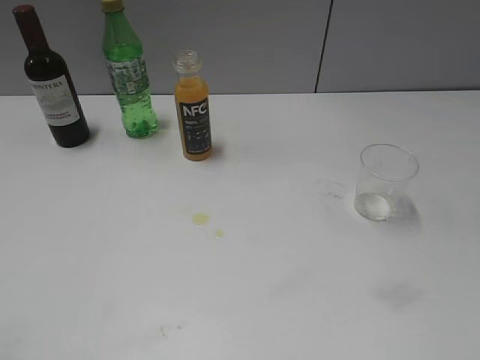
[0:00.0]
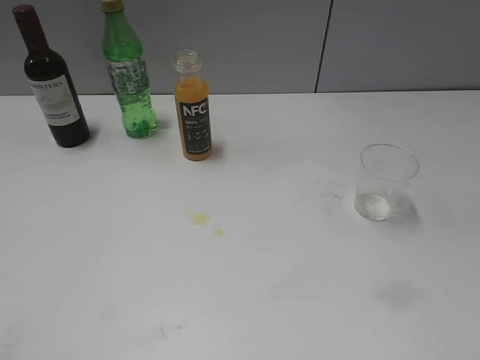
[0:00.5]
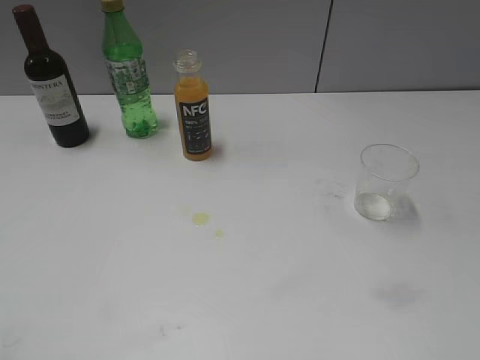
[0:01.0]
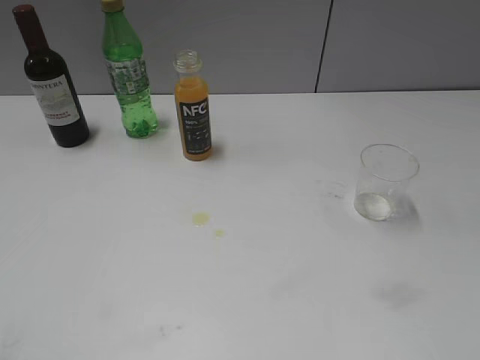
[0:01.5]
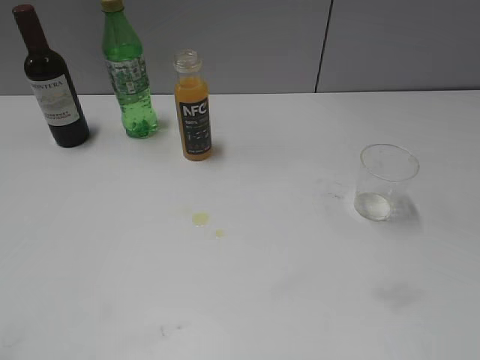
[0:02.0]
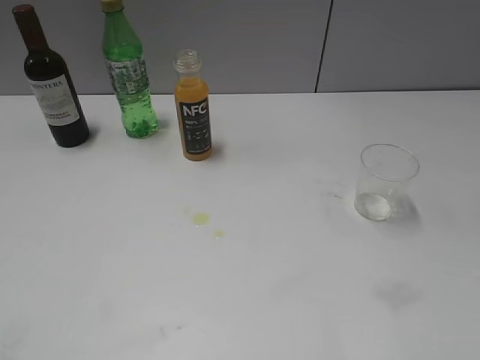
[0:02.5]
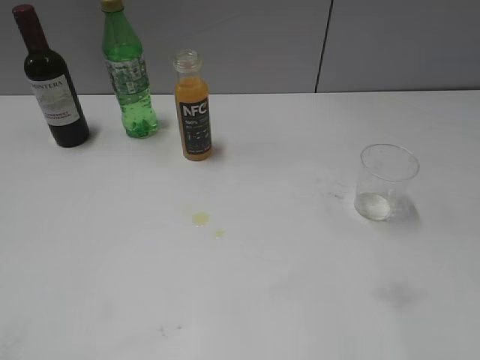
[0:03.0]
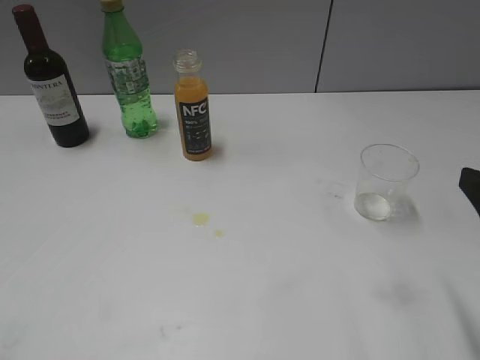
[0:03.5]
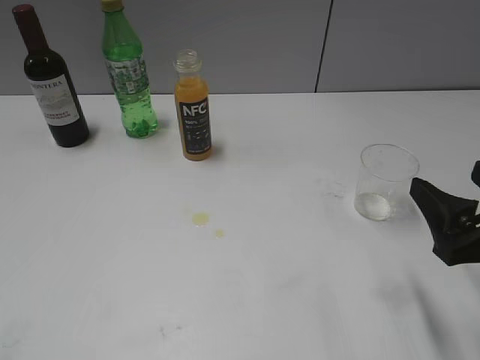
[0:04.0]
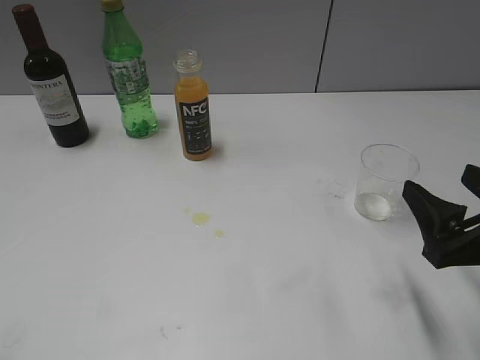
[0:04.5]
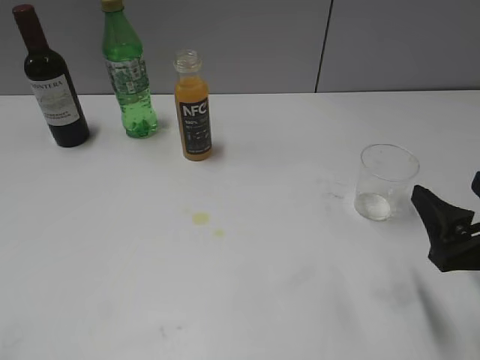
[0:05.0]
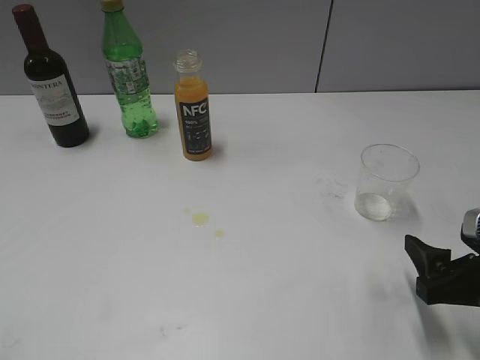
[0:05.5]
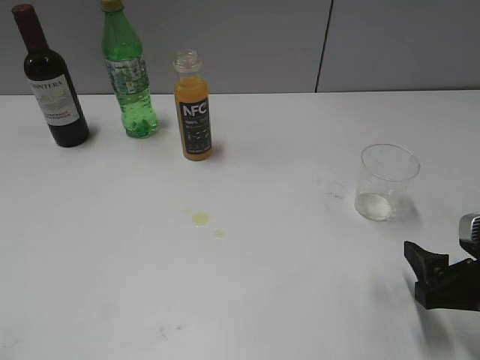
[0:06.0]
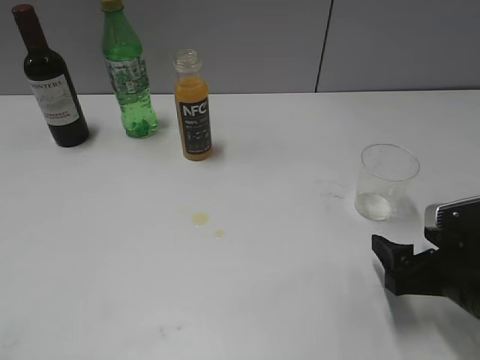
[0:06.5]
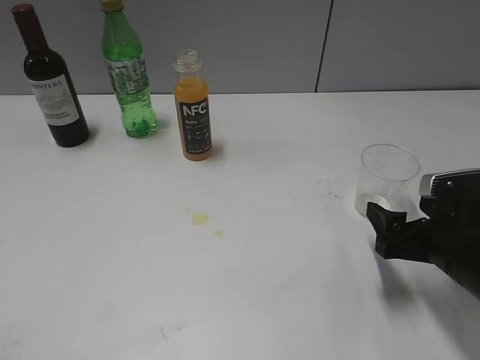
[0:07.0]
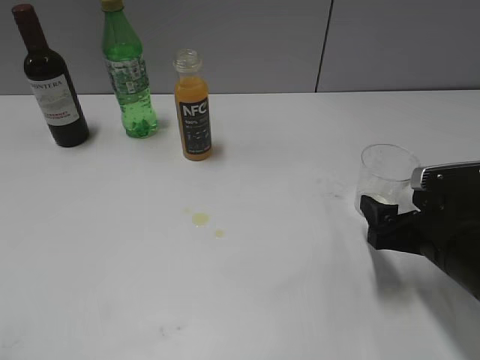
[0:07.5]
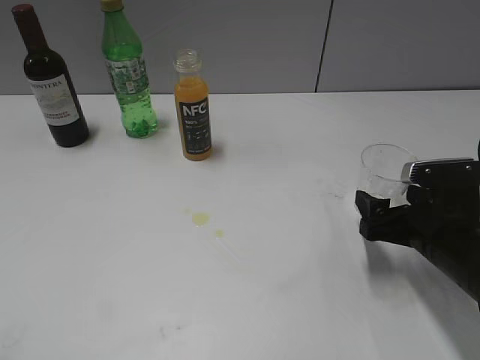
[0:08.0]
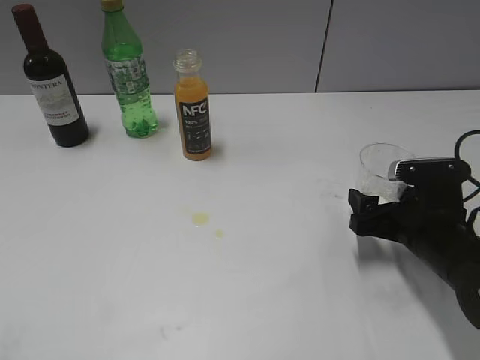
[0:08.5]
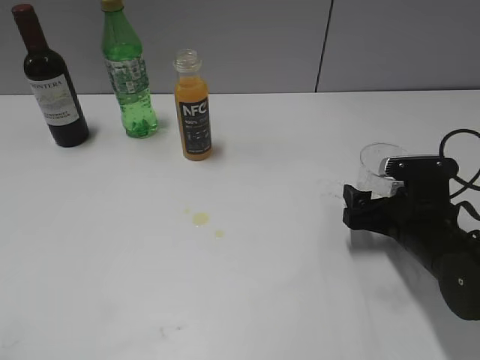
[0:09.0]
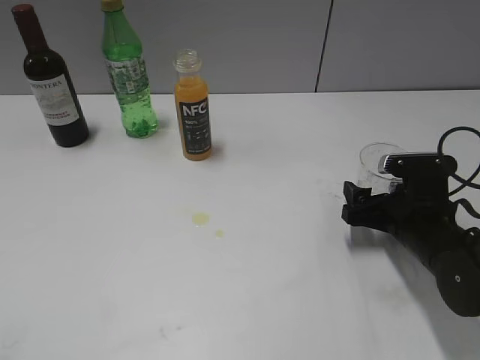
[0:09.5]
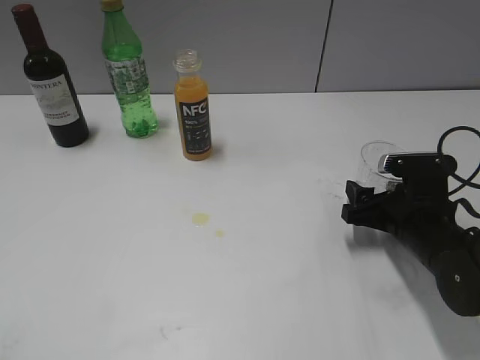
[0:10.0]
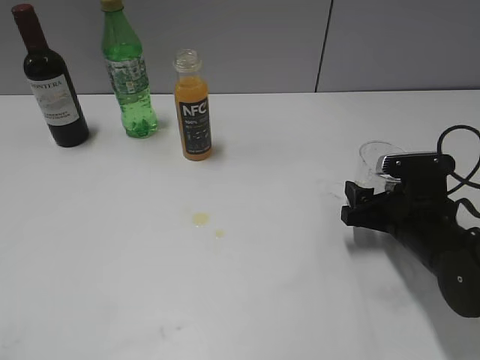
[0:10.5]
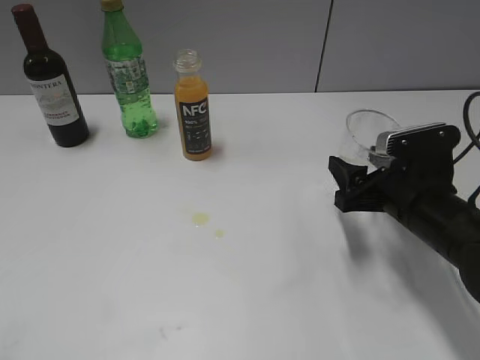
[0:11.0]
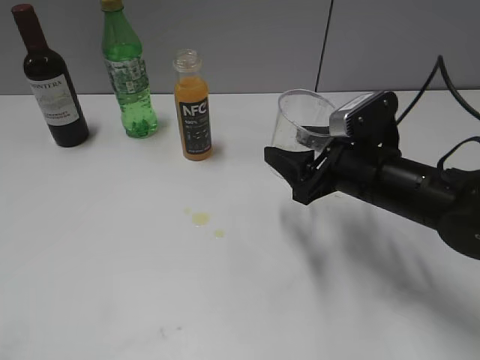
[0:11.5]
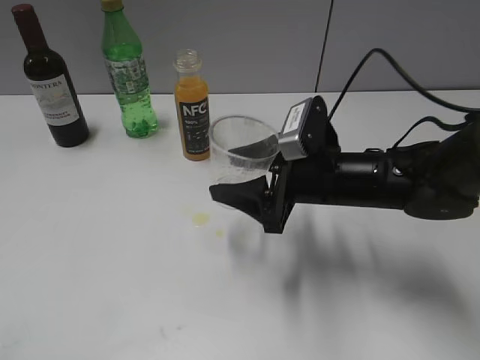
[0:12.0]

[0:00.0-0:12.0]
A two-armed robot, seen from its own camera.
Step, 0:03.5 to 0:10.0: Grasp the transparent cup with right gripper.
0:02.0 to 0:04.0: The right gripper travels forward and downward by approximately 15 cm.
0:04.0 to 0:06.0: The right gripper moves downward, roughly 5 cm.
0:06.0 to 0:08.0: The right gripper goes approximately 10 cm forward.
0:08.0 to 0:10.0: The right gripper closes up.
0:10.0 to 0:12.0: The right gripper is displaced to the left and upward by approximately 15 cm.

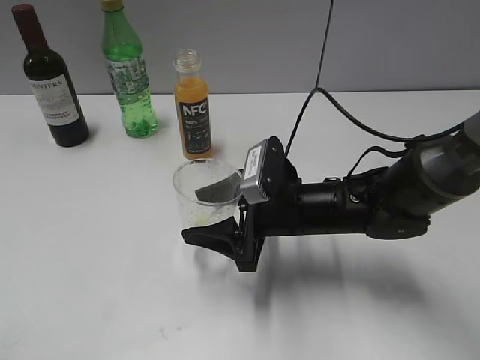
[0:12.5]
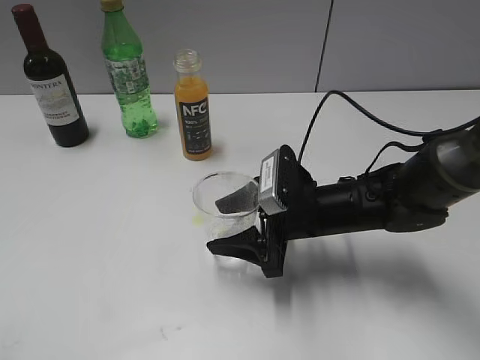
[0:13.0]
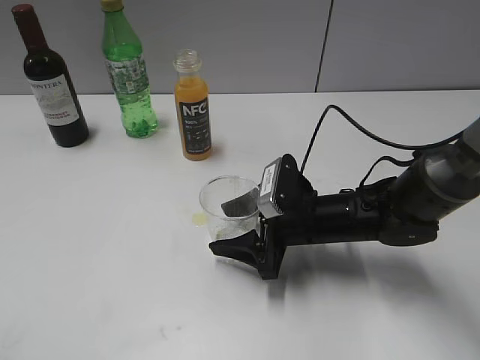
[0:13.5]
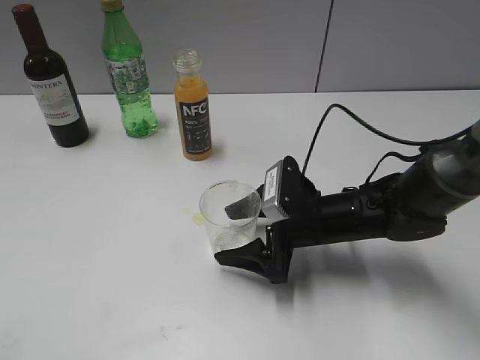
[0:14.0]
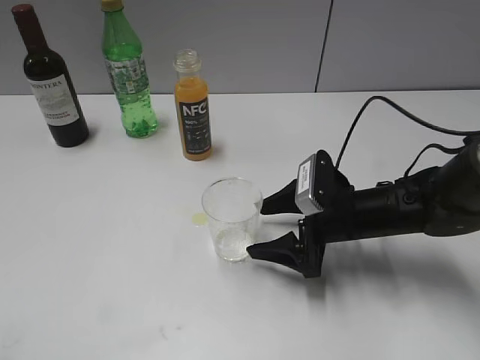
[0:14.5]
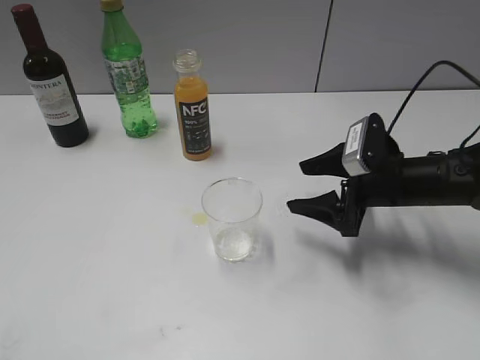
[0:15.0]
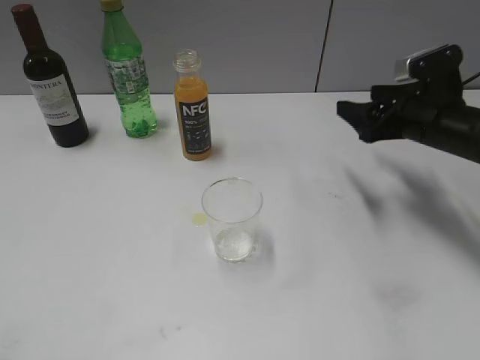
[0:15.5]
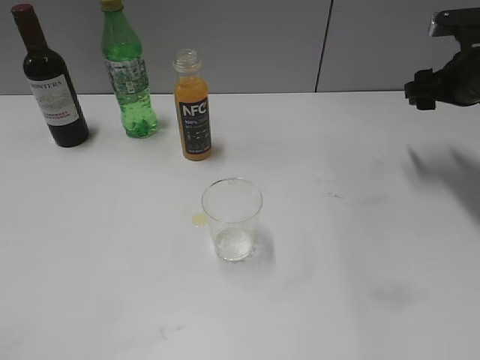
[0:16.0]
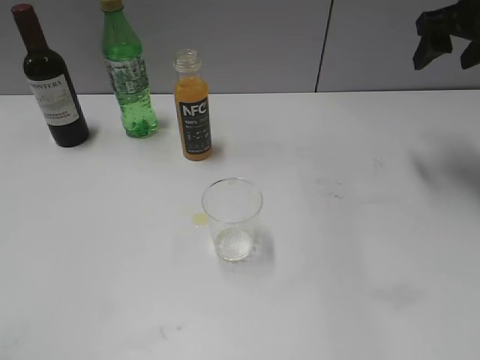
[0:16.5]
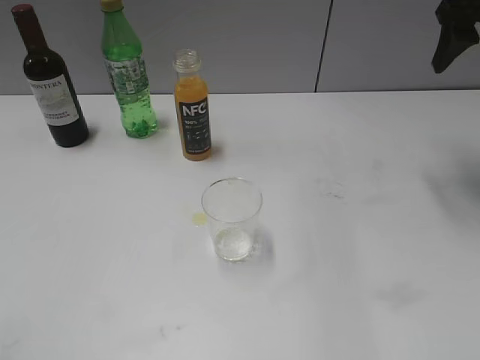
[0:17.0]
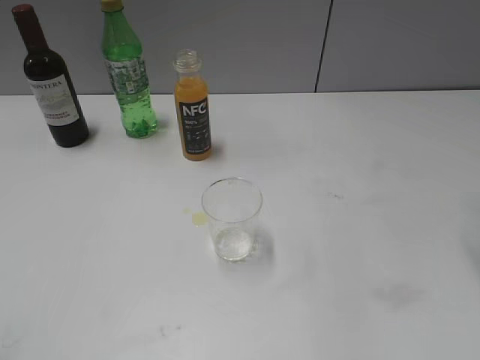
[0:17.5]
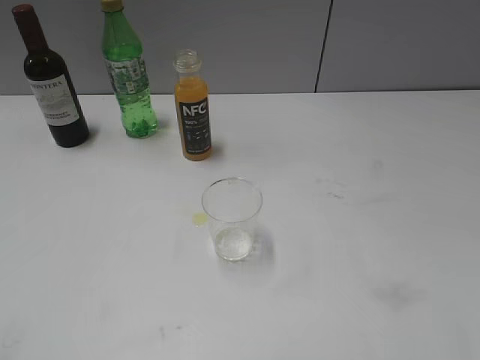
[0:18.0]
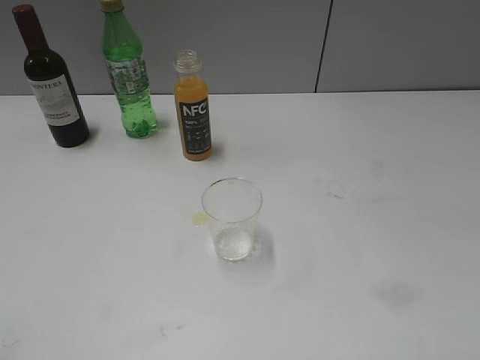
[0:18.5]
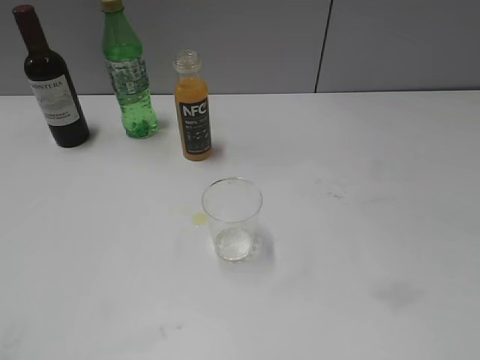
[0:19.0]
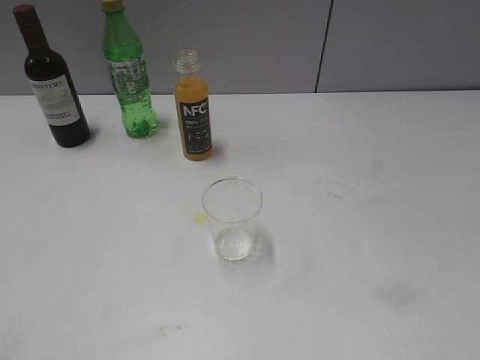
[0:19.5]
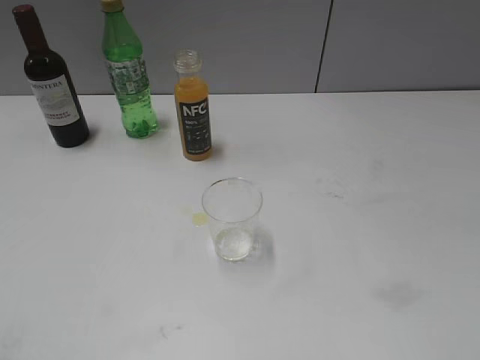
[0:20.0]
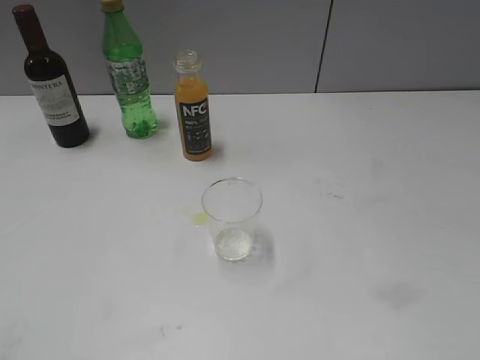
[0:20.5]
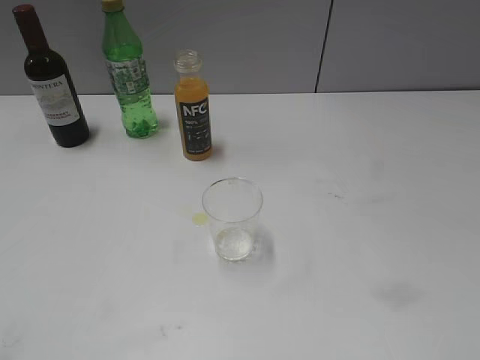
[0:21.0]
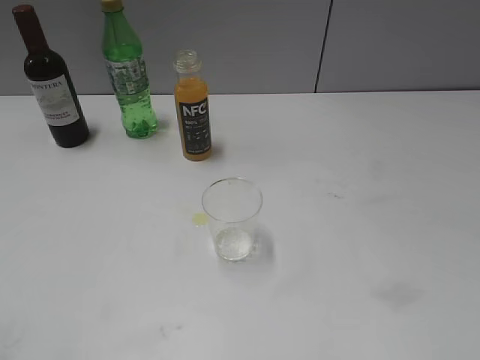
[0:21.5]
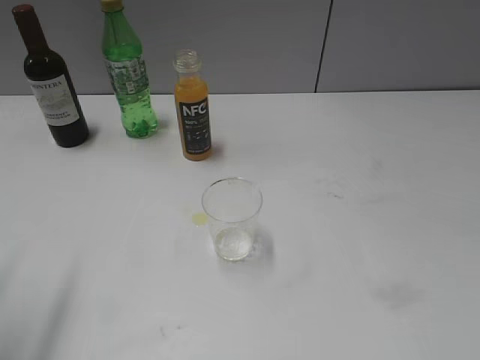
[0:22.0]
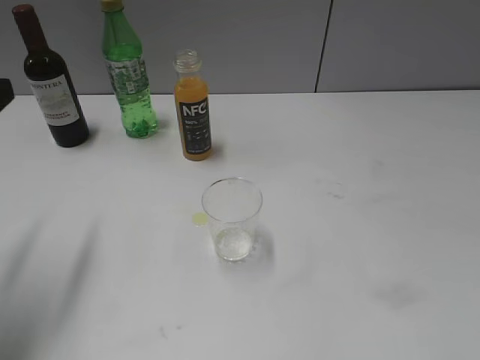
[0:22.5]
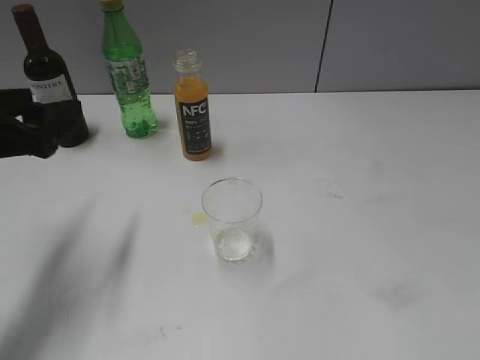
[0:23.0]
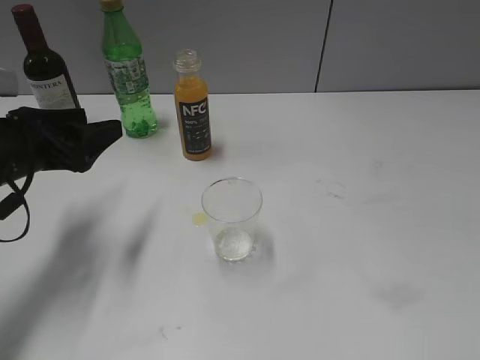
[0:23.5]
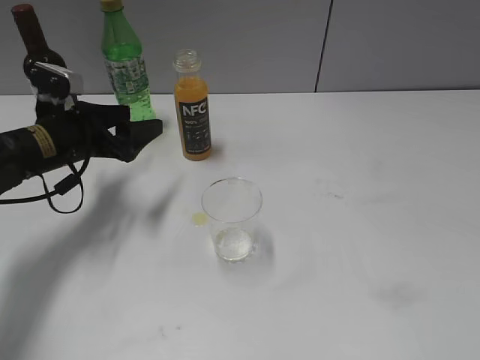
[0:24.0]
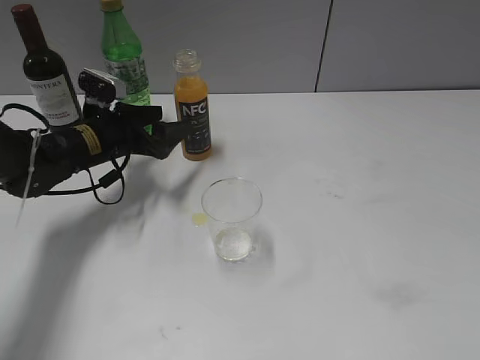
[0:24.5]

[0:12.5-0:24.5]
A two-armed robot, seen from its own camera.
0:12.5 to 0:14.5: The right gripper moves to the right, approximately 5 cm, and opens up.
0:14.5 to 0:16.5: The right gripper is displaced upward, to the right and forward by approximately 30 cm, and closes.
0:16.5 to 0:18.5: The right gripper goes roughly 35 cm backward.
0:20.5 to 0:22.5: The left gripper goes roughly 20 cm forward.
0:22.5 to 0:24.5: The left gripper is displaced forward, downward and to the right by approximately 25 cm.

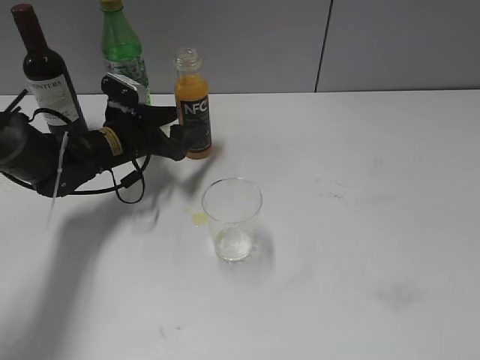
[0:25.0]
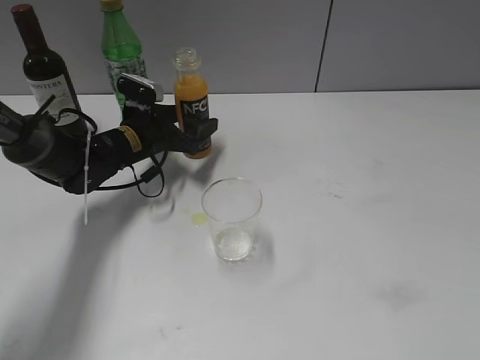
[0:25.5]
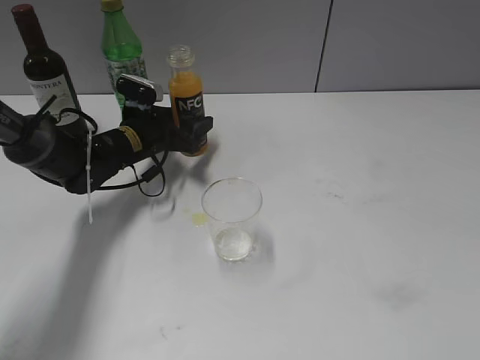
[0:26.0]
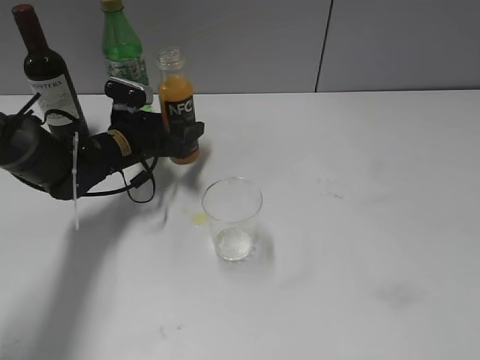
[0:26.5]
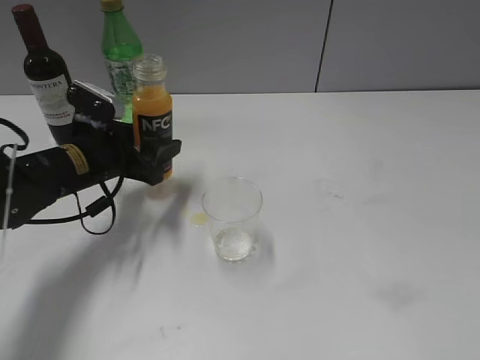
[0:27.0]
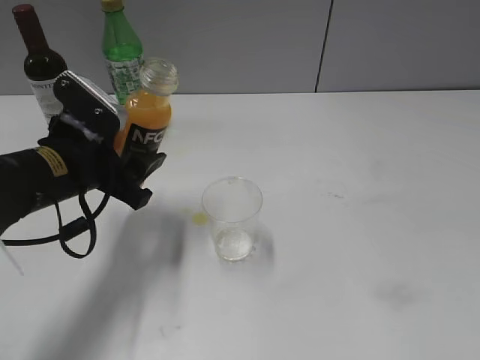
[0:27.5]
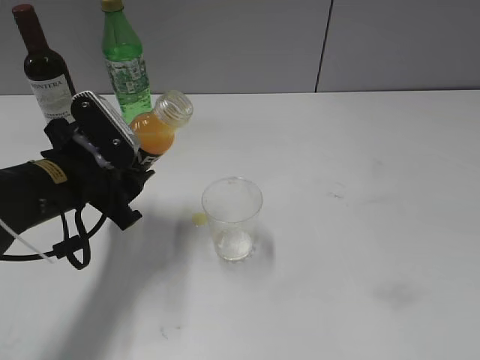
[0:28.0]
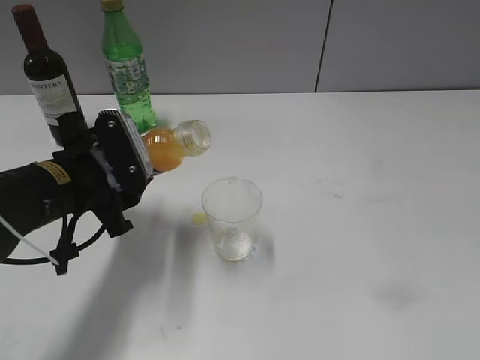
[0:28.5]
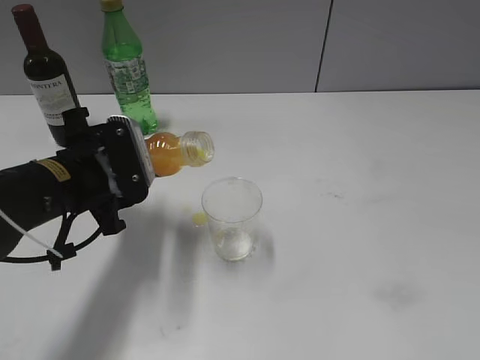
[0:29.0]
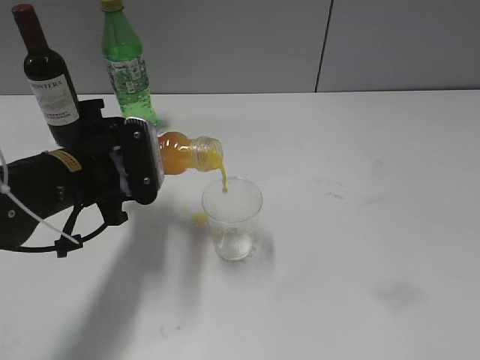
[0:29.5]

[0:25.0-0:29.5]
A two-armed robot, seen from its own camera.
0:25.0 to 0:27.0: The left gripper goes about 10 cm backward, and closes up.
0:27.0 to 0:29.5: The left gripper shifts approximately 5 cm backward.
